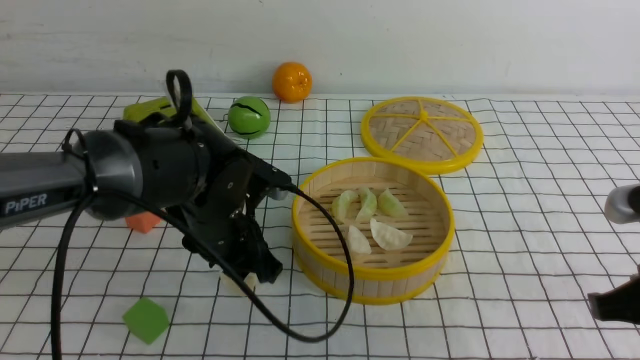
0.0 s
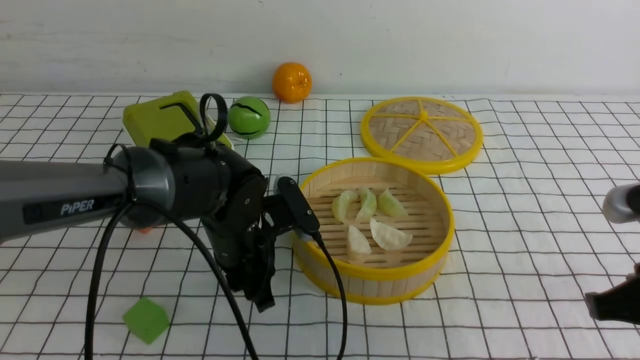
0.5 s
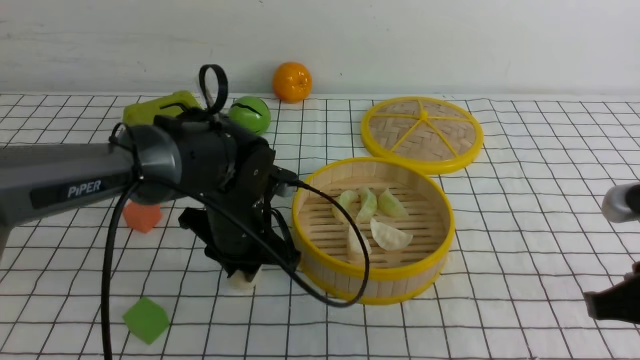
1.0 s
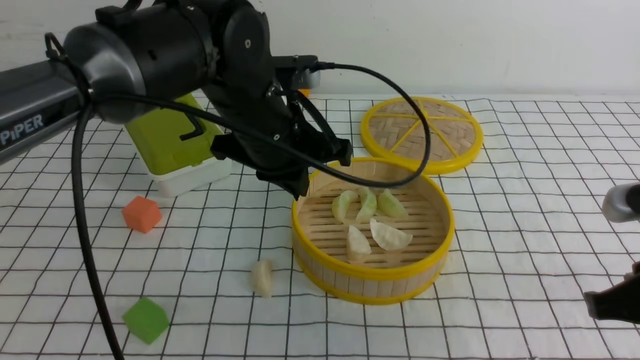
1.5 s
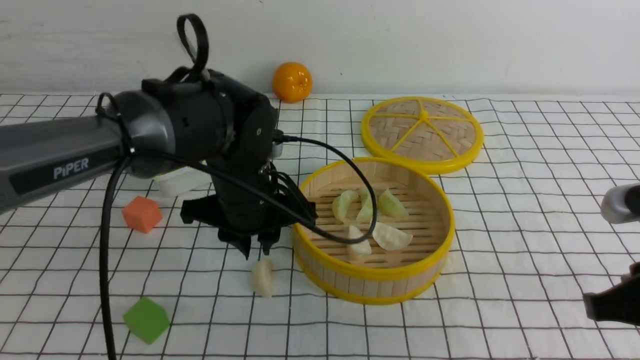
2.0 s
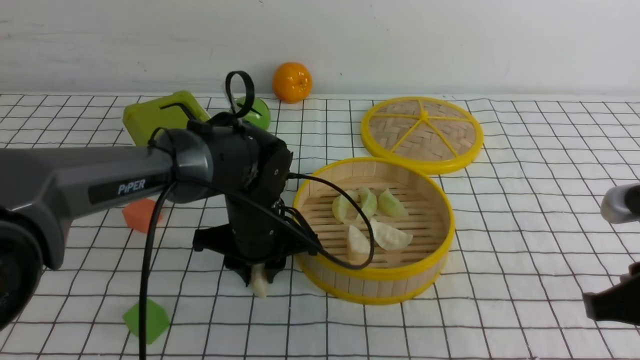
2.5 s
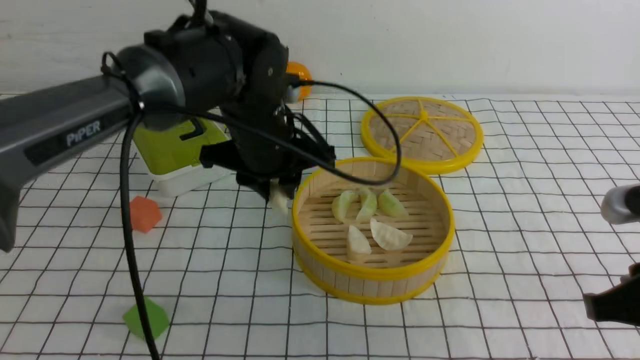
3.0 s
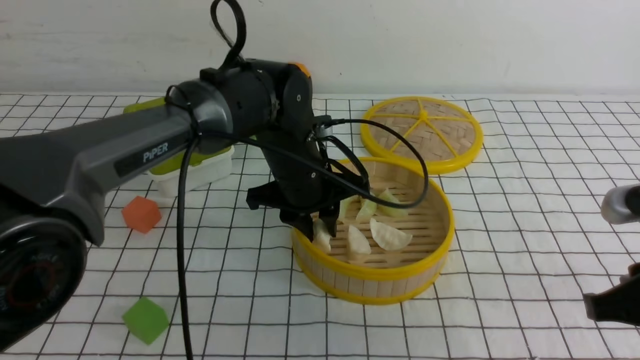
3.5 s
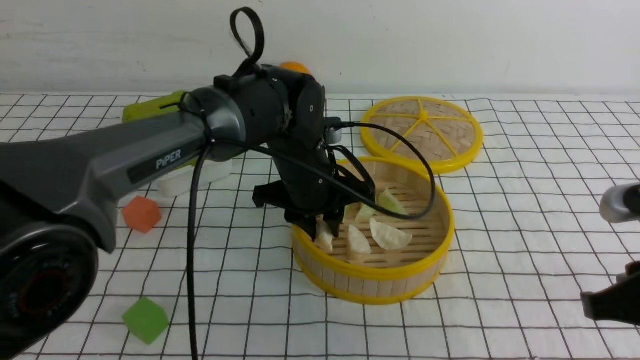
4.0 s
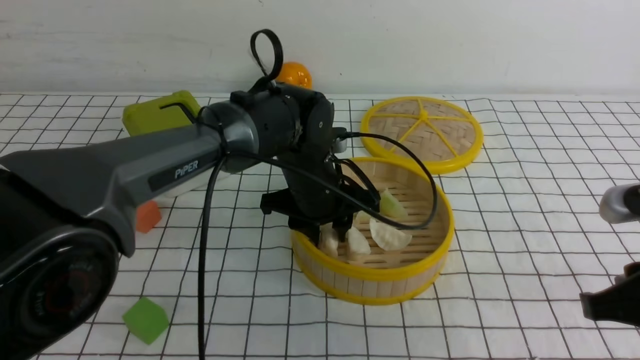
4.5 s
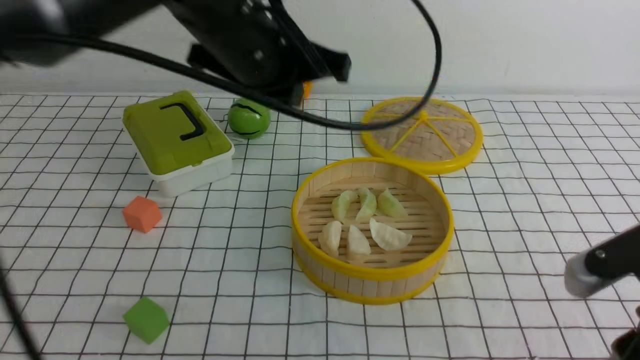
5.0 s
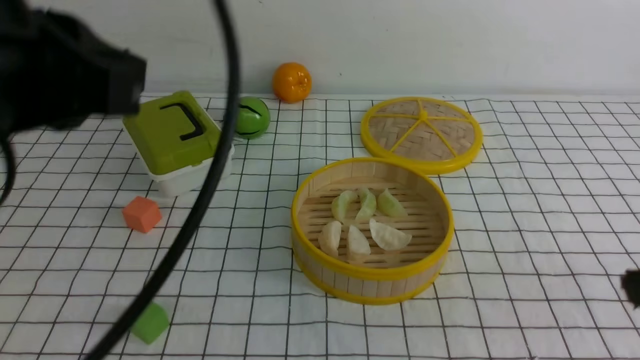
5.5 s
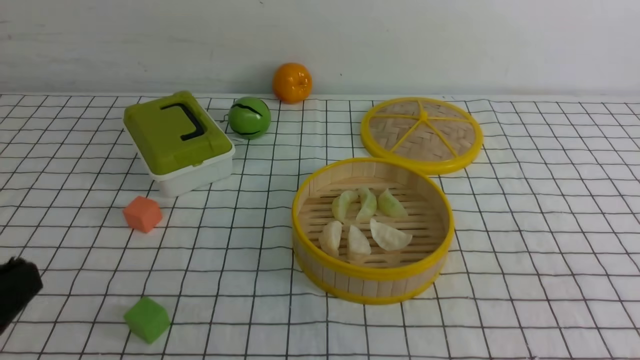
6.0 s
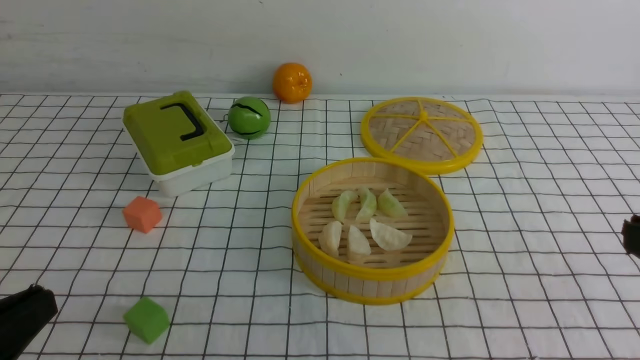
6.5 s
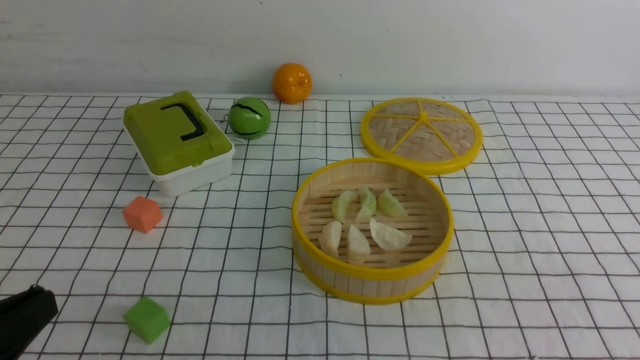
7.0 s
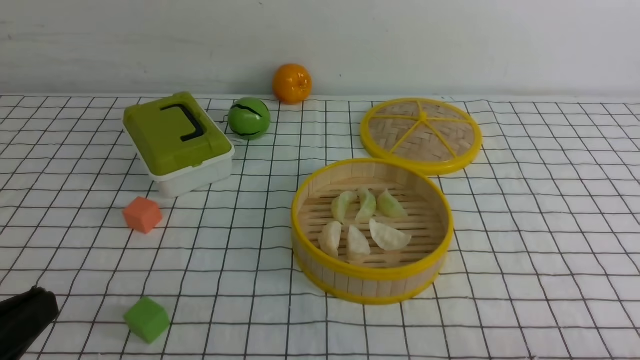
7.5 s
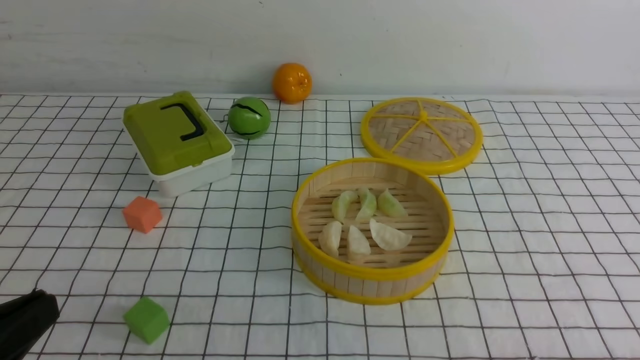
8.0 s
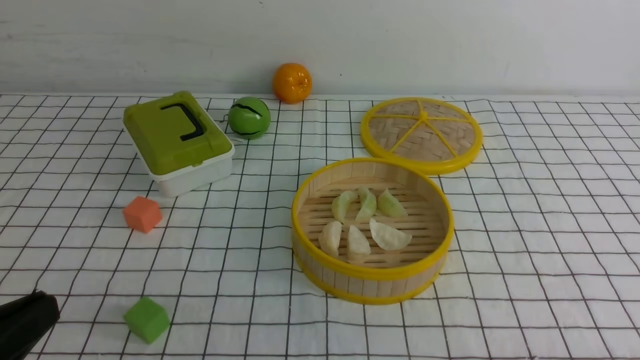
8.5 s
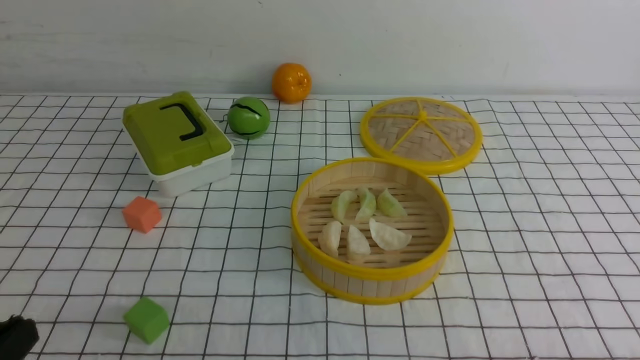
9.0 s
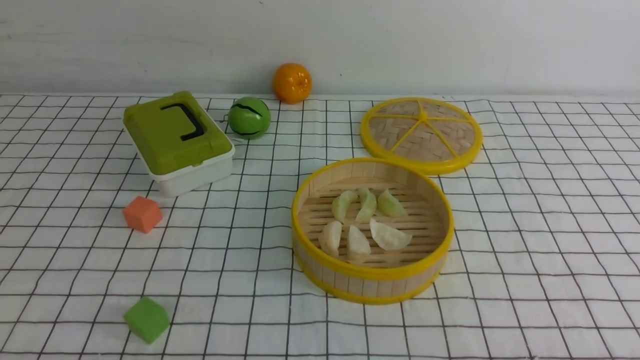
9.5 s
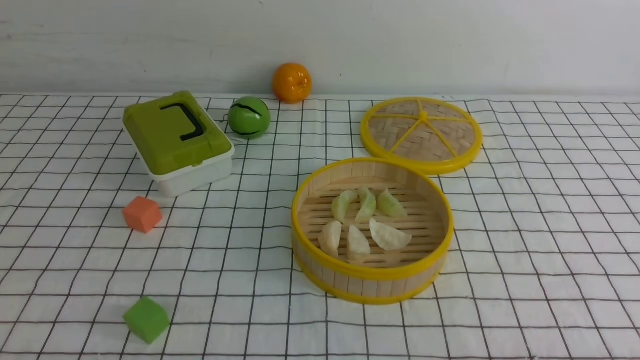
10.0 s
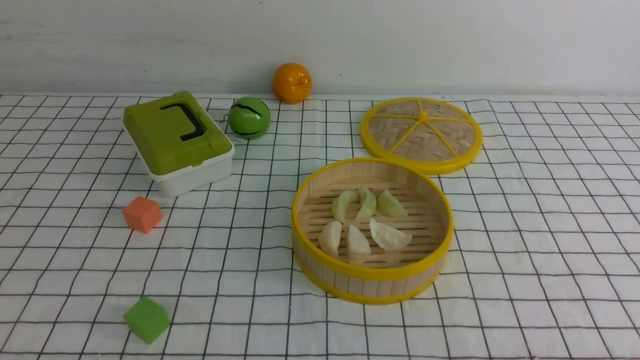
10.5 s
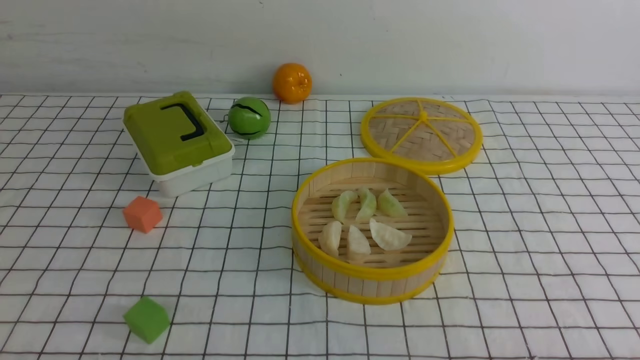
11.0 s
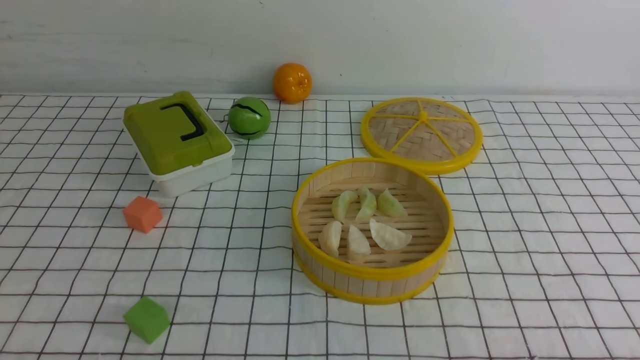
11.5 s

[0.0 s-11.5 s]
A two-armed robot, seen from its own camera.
Task of the whole recording: put the dumplings into the steamer on the table with the white tablecloth.
Step, 0.0 to 3.0 s: use the left arm to grab a dumpling.
Step, 3.5 to 4.5 s: use the left arm to put the dumpling into the steamer.
0.0 to 2.0 s: The left gripper moves approximately 10 cm upward and comes back, and closes and opens again.
2.0 to 4.0 s: The left gripper moves up and down over approximately 10 cm, changing direction 2 times.
4.0 to 6.0 s: The left gripper goes some 40 cm backward and to the left, and closes its fingers. The right gripper moves upward and backward, some 15 cm.
7.5 to 9.5 s: The left gripper shifts roughly 10 cm downward.
